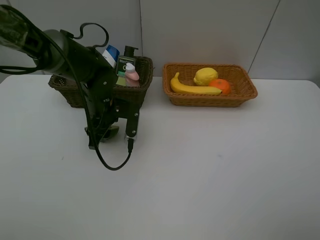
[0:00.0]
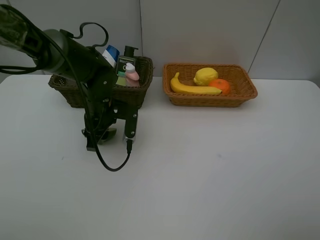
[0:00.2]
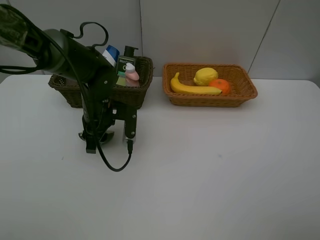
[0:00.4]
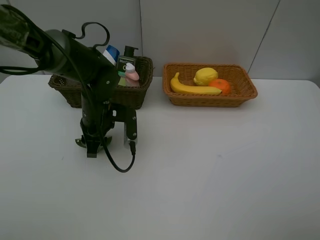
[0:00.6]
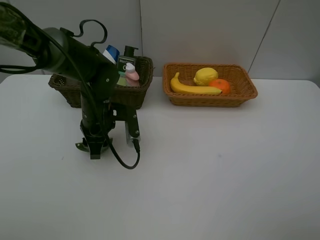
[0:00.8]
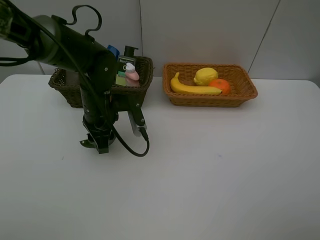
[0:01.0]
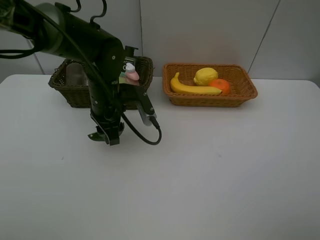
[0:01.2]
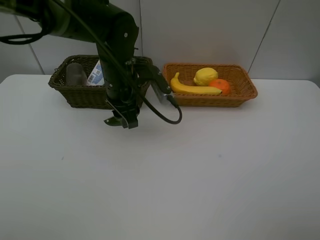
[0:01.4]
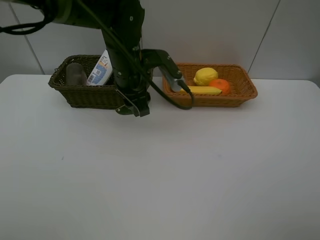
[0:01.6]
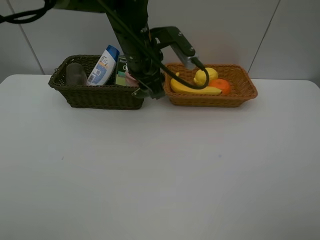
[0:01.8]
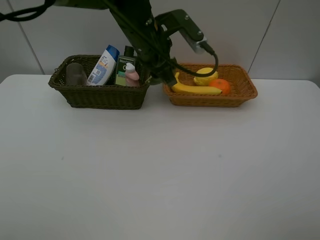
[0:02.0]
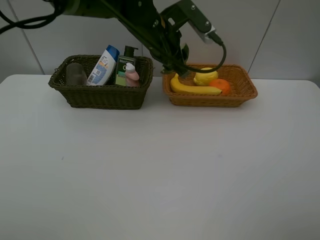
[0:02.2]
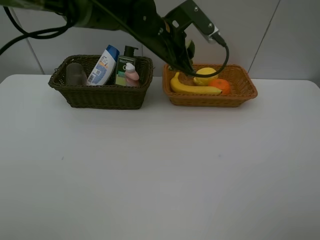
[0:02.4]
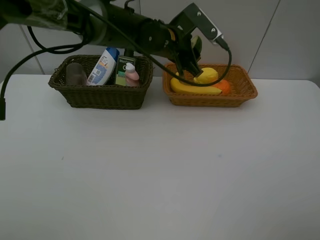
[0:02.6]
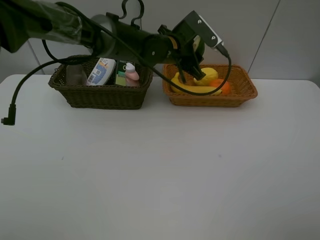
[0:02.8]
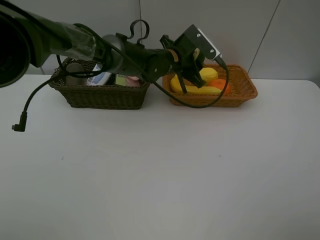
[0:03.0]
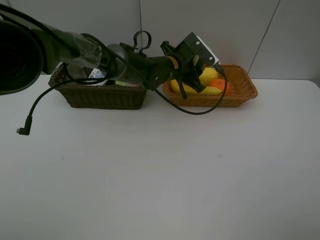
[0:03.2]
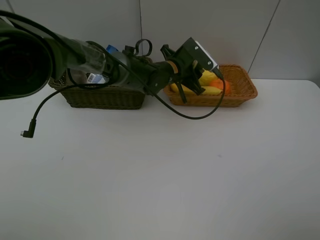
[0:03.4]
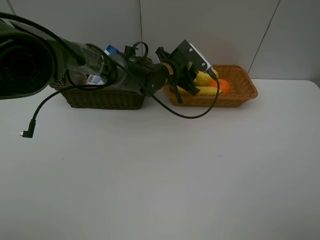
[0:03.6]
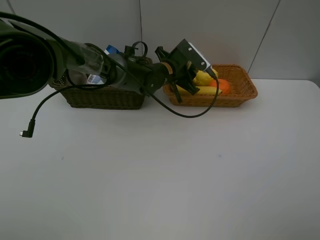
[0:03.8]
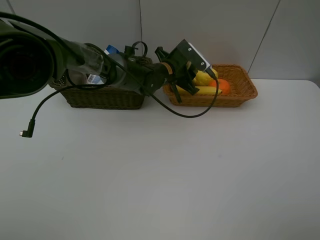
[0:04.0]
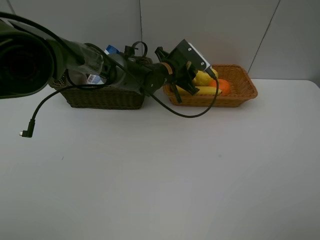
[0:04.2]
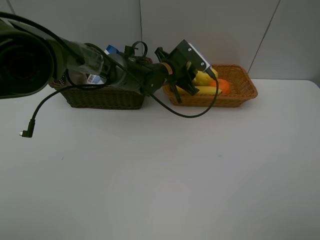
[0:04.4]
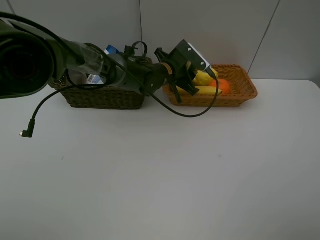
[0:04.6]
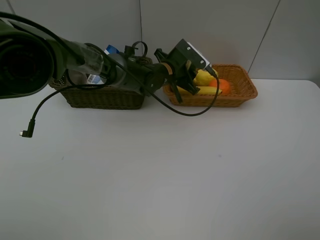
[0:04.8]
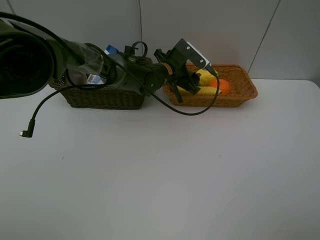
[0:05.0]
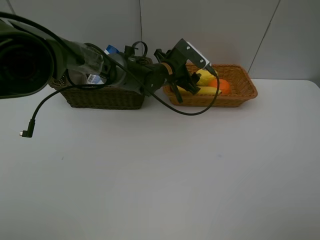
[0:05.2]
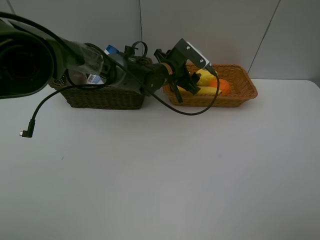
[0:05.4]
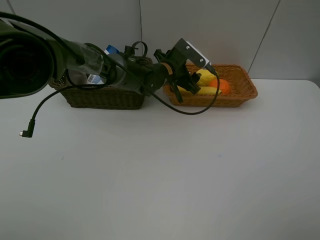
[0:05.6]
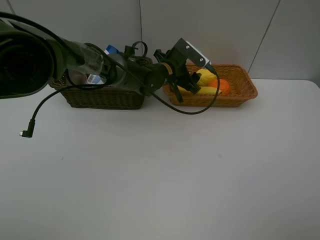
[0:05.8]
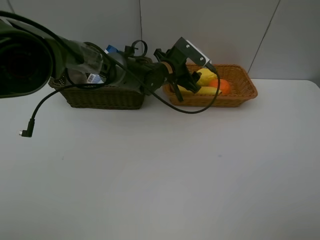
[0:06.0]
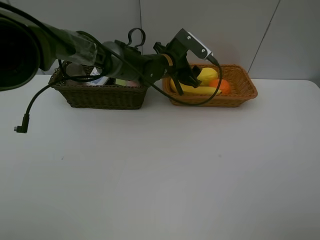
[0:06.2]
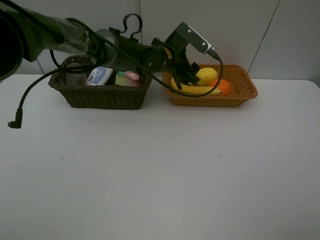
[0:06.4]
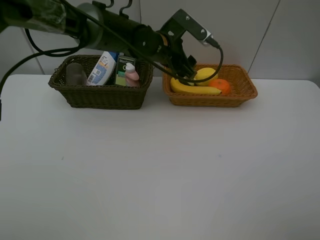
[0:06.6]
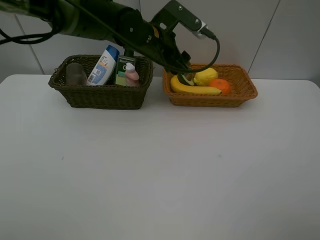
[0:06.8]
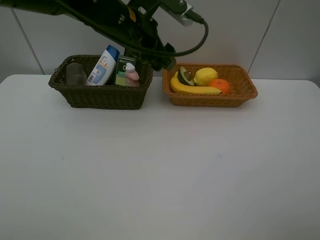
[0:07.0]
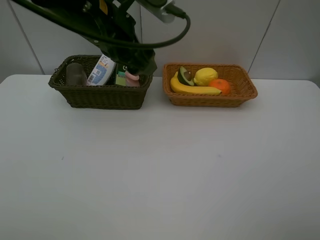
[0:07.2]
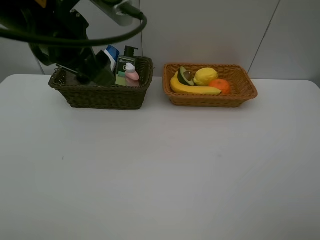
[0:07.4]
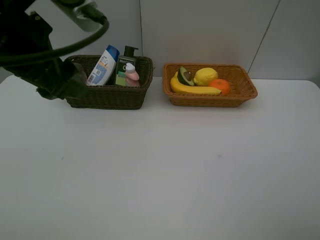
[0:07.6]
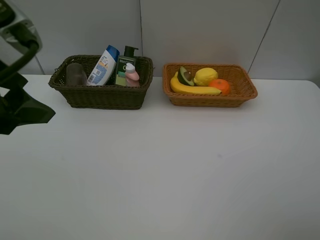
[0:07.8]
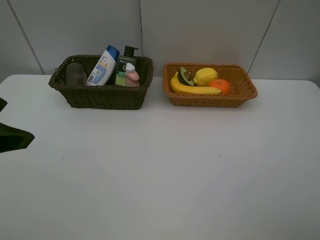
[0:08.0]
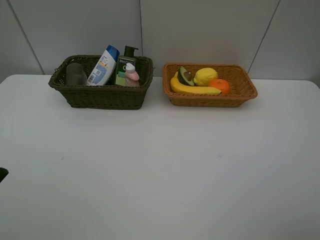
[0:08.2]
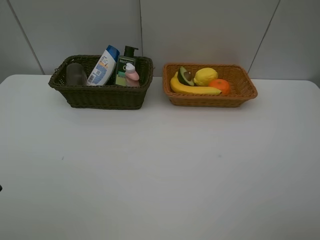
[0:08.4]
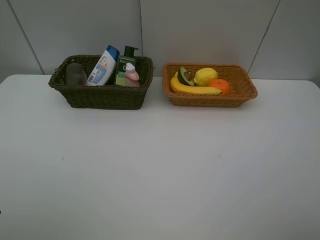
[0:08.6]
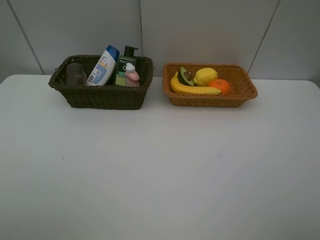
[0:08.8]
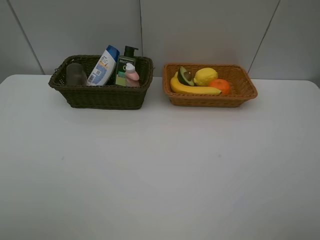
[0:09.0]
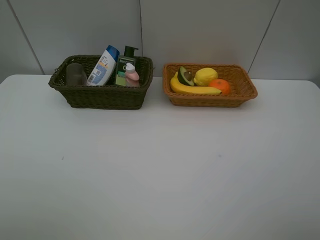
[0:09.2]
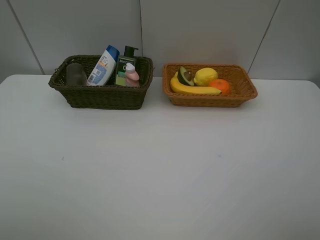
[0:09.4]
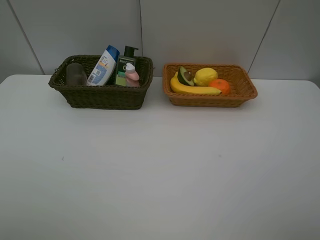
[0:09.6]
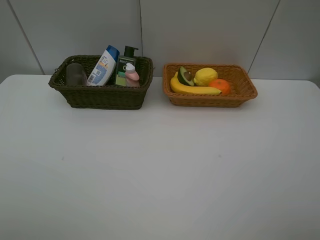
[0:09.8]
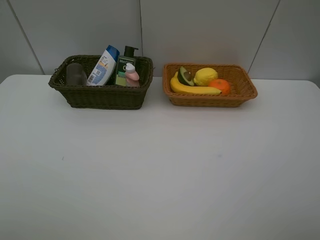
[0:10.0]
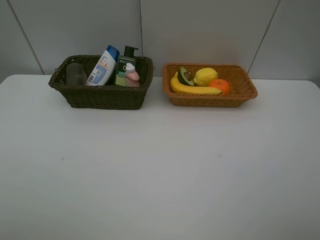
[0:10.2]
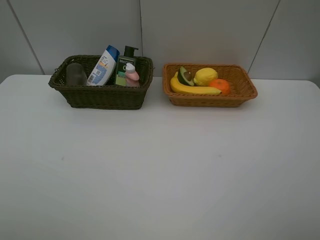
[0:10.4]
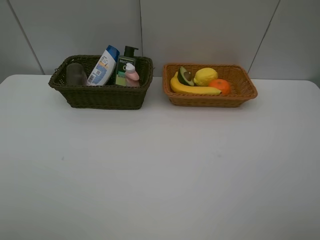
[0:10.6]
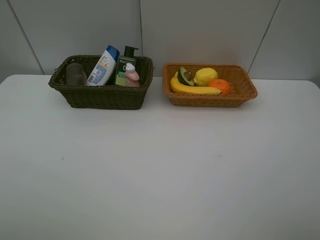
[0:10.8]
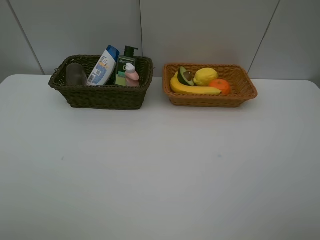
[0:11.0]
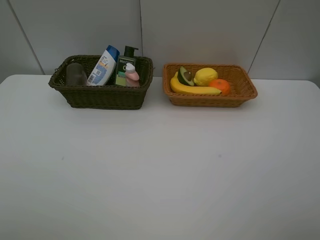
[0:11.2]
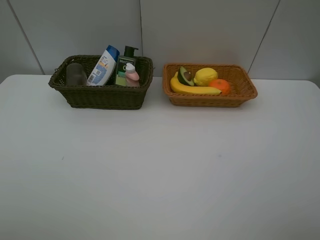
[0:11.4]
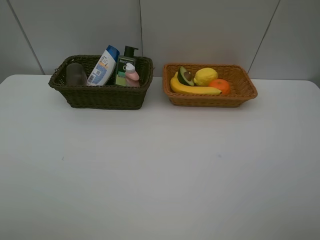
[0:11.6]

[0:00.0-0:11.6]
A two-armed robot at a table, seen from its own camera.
Task of the whole recording: Place multiple objects separately in different baskets.
Step, 0:01.4 to 0:06.4: Place the avocado in the light basket with left gripper.
0:00.0 to 0:01.4: The left gripper goes some 10 cm upward and to the right.
0:01.4 to 0:02.8: The left gripper travels to the right and forward by about 10 cm.
0:02.8 to 0:04.4: The left gripper shifts some 5 cm downward.
0:04.4 to 0:05.8: There are only small adjustments of the grippers.
0:05.8 to 0:07.2: The left gripper is displaced upward, backward and to the left by some 25 cm.
0:07.2 to 0:08.8: The left gripper is displaced backward and to the left by roughly 30 cm.
0:10.2 to 0:11.6: The two grippers keep their place.
